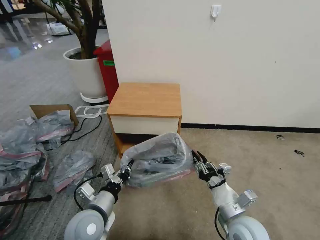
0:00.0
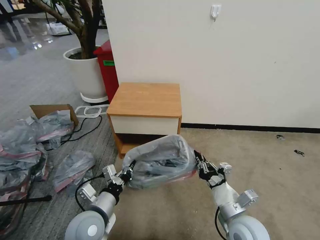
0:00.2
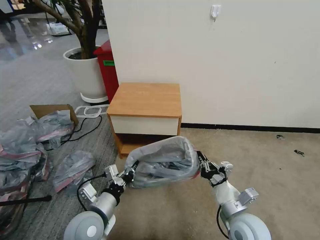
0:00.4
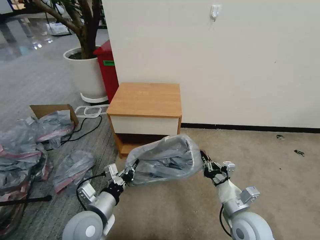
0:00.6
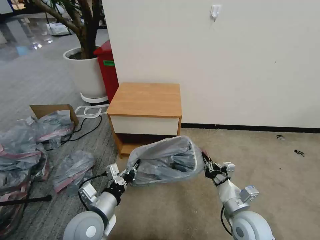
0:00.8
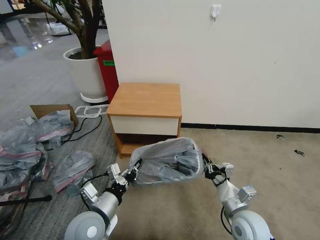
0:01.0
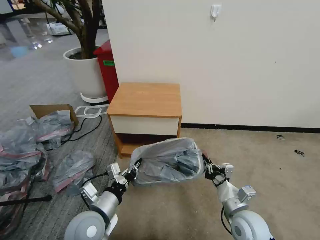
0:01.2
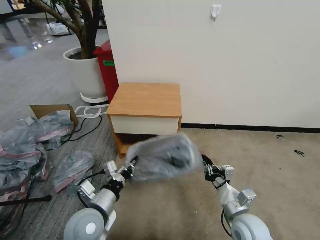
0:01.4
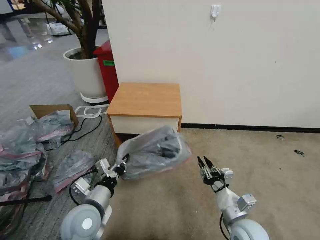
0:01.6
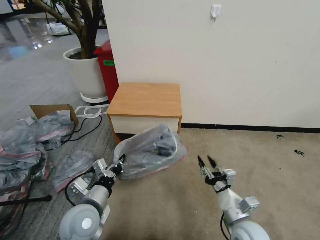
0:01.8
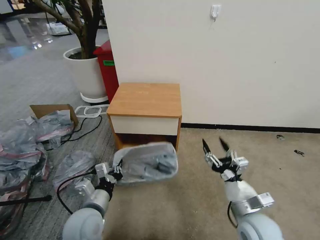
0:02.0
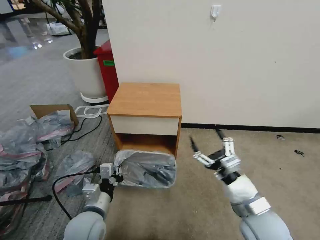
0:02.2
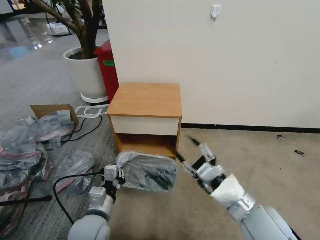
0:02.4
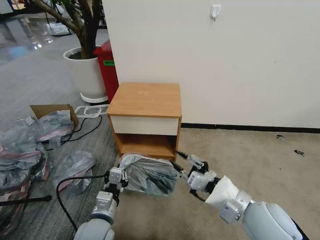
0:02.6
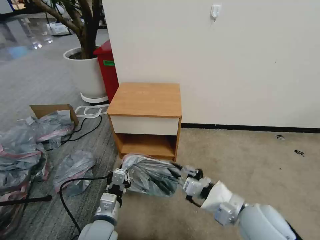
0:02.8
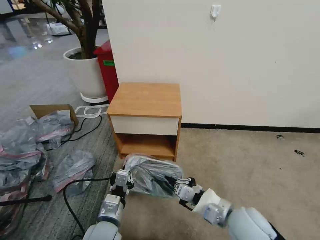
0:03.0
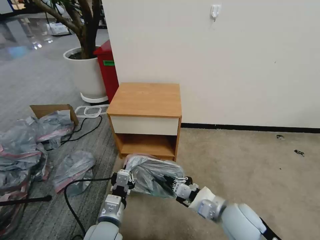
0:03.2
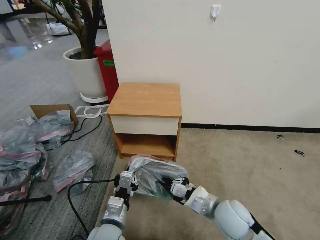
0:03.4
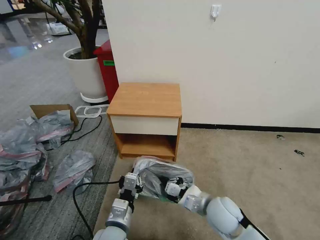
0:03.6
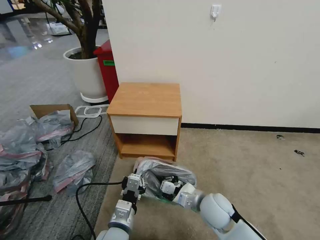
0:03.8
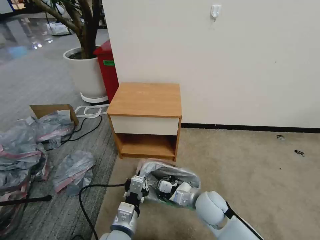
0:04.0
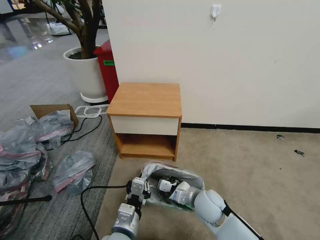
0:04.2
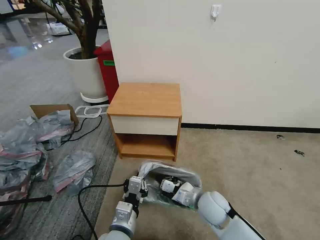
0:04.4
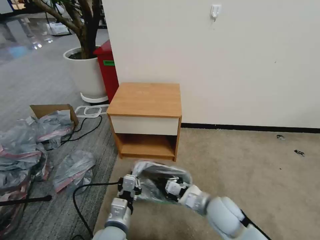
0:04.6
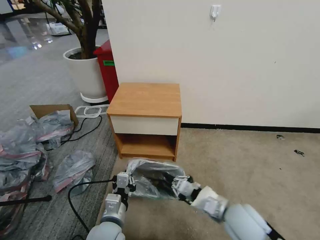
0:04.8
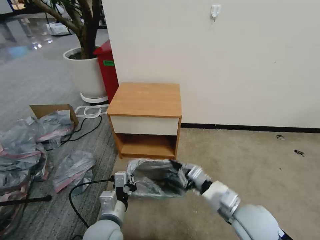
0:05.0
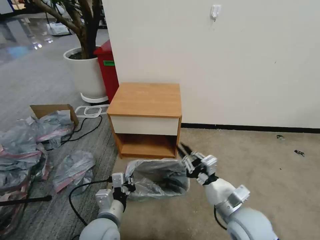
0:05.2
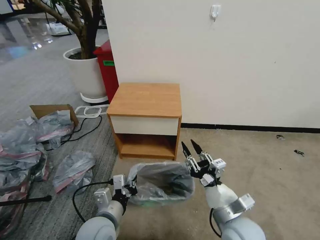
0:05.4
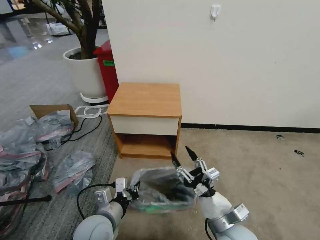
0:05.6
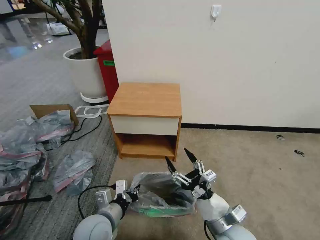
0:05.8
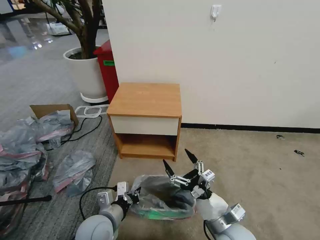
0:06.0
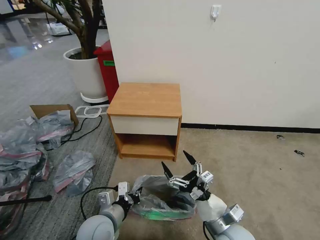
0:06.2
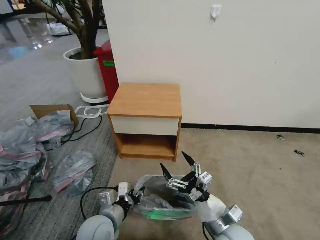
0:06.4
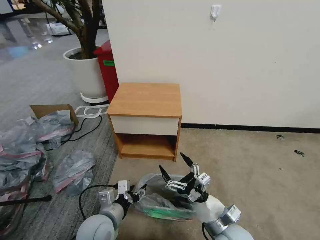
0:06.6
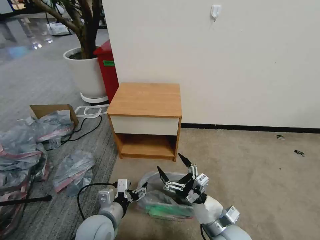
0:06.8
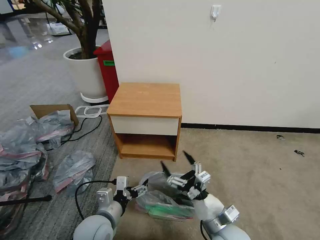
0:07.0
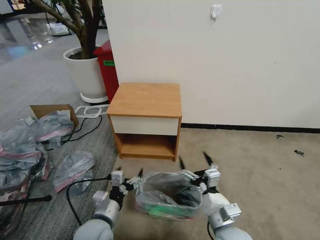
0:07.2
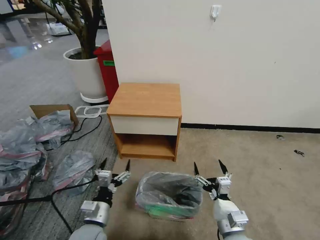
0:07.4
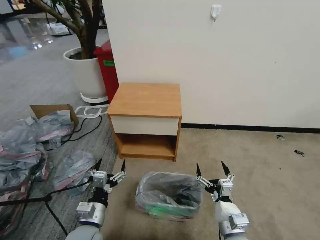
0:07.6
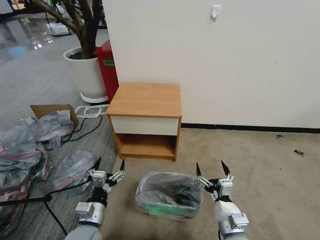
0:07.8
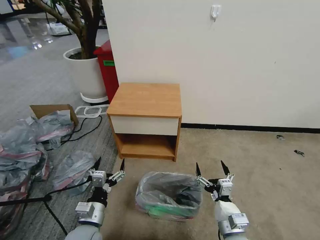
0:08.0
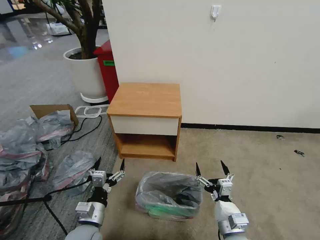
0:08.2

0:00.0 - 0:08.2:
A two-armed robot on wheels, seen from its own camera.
Task of the whole recording: Pick up the garbage bag from the table and place it over the trash can.
0:00.0 - 0:01.6: The grippers make only small movements.
0:01.6 - 0:03.2: The right gripper goes about 5 cm upward, and opens and closes again. The left gripper goes roughly 5 cm to the right.
0:03.2 - 0:05.0: The right gripper reaches about 10 cm downward, then returns.
0:05.0 - 0:06.6: The left gripper opens its fingers. Meanwhile the right gripper is displaced downward by roughly 5 cm, and opens.
0:06.6 - 0:08.2: The left gripper ends up some 5 cm from where it was, and opens up.

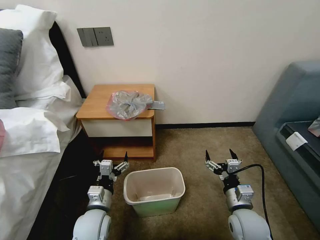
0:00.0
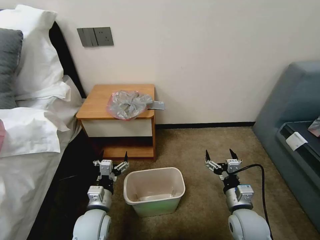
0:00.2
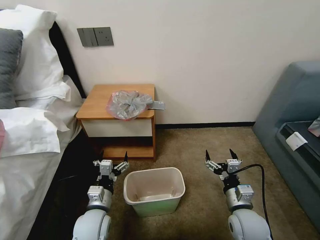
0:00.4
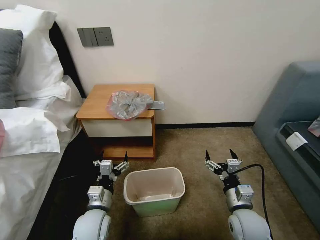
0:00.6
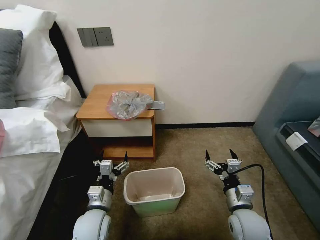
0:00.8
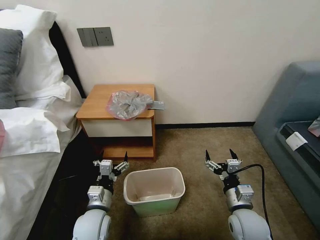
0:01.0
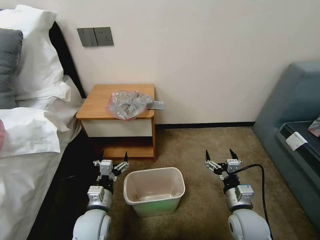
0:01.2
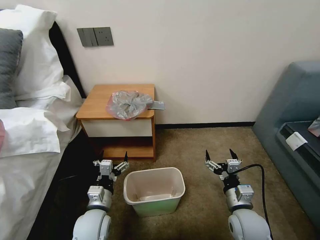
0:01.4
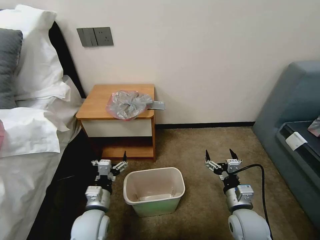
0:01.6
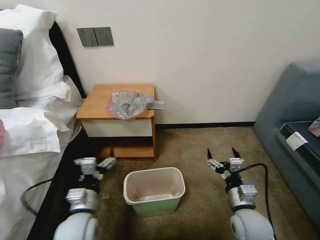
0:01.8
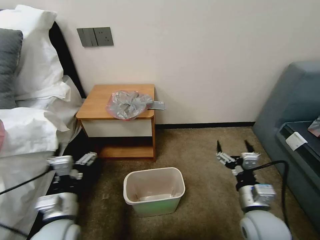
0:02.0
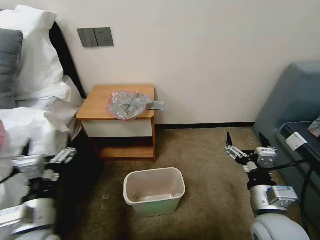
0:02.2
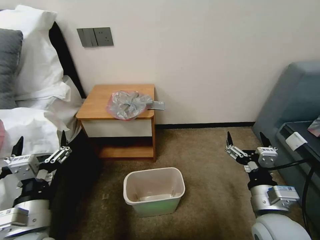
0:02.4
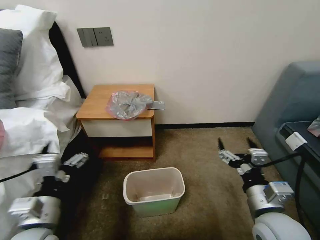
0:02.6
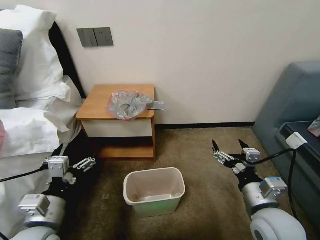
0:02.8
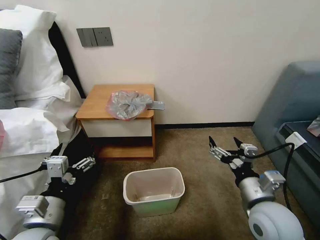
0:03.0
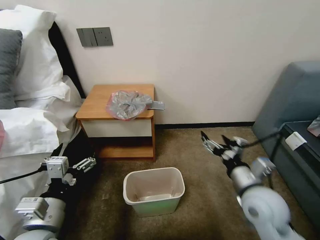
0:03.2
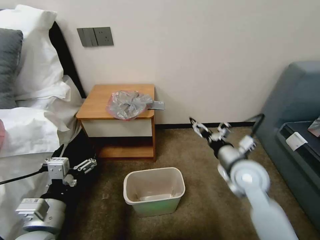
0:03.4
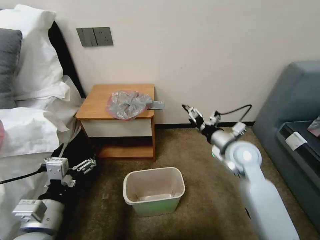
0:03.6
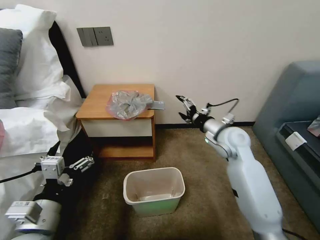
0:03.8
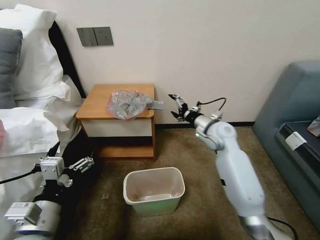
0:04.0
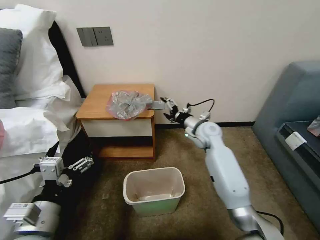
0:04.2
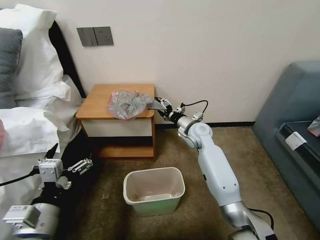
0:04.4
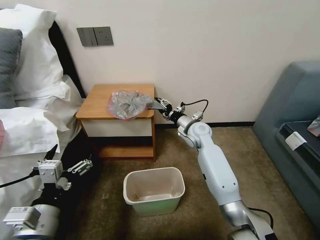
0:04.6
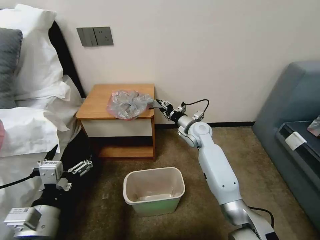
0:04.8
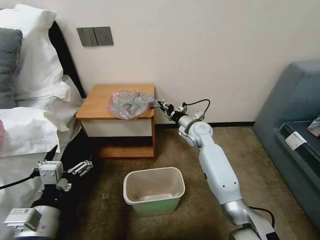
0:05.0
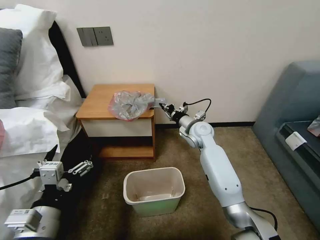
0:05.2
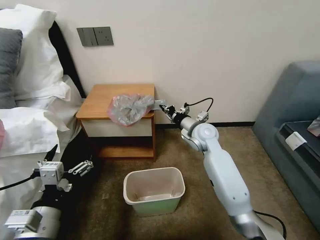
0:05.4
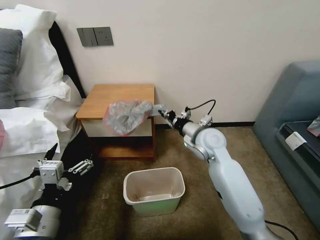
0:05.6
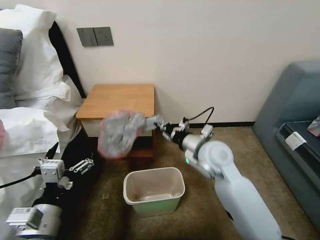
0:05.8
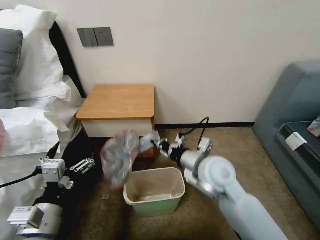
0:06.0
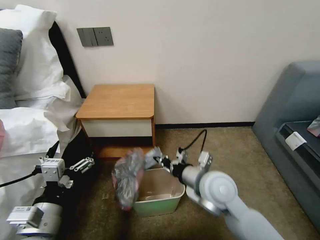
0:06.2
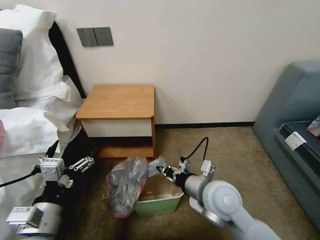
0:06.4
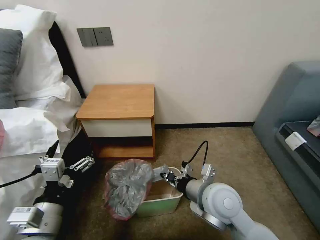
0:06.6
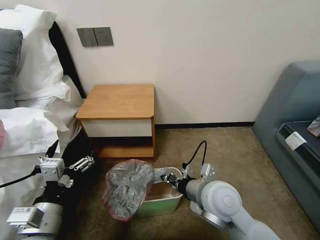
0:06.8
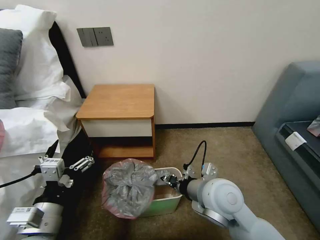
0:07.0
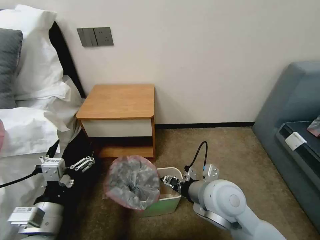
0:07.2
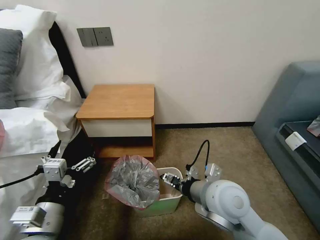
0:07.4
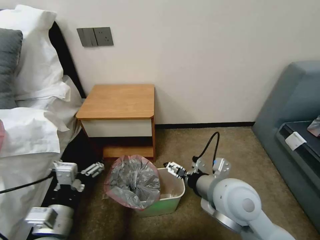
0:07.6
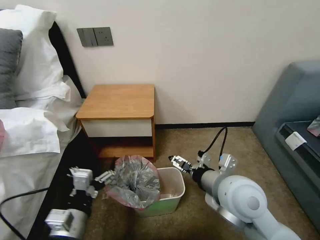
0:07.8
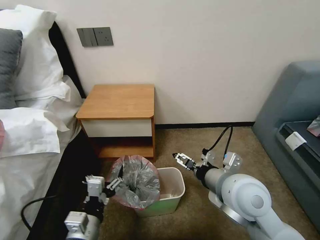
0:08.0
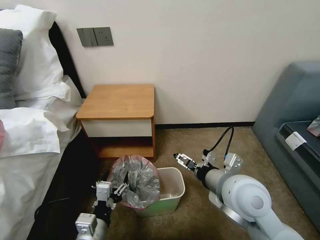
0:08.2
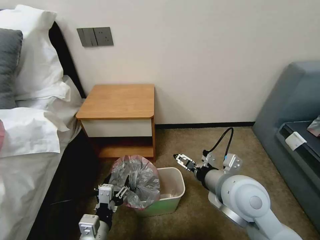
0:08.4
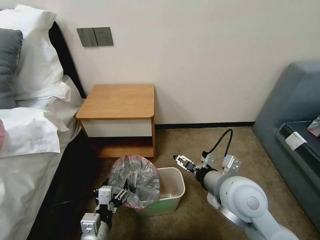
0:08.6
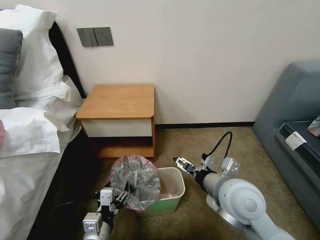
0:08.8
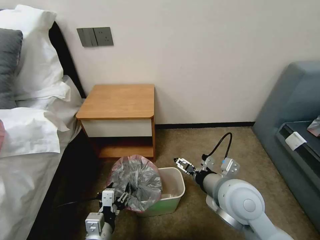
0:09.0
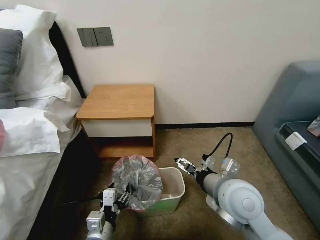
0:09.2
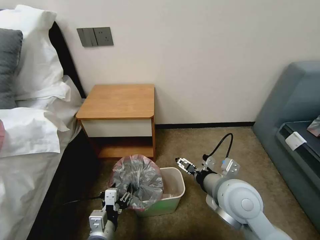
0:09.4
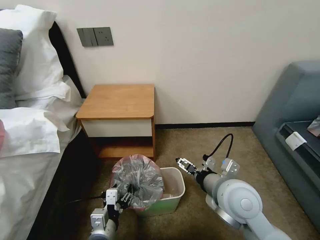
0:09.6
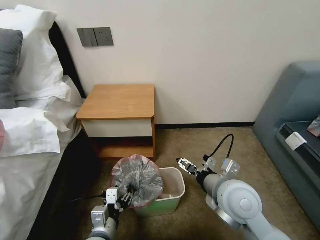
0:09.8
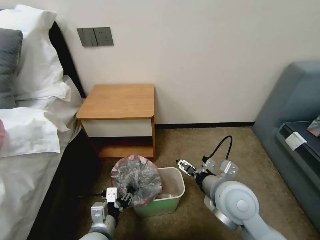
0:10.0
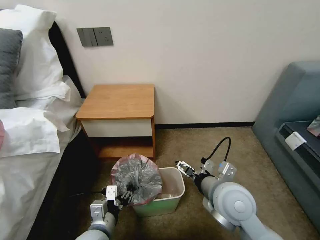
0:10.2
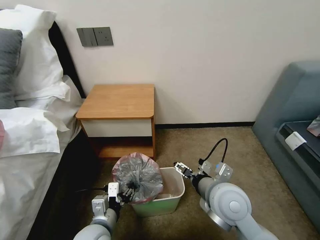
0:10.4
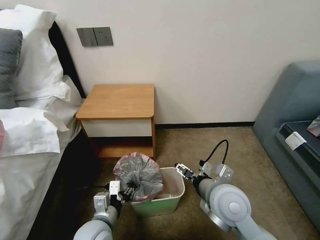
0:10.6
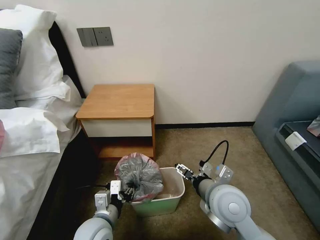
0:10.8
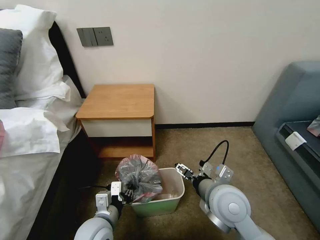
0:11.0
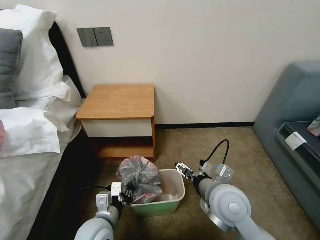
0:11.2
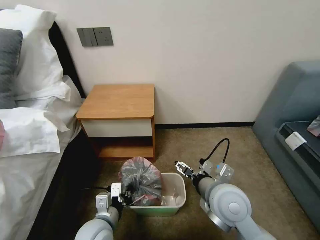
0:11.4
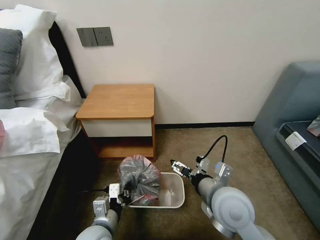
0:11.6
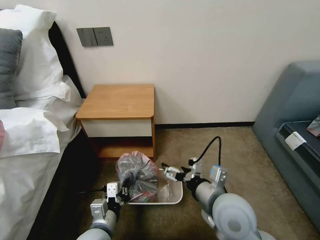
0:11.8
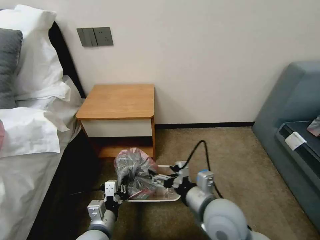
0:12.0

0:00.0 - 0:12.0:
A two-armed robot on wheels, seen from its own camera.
Task of the whole recording: Pick up the garbage bag from the table and place it over the trash can.
0:01.6 - 0:03.0: The right gripper moves upward, about 10 cm, while the left gripper heads upward, backward and to the left, covering approximately 15 cm.
0:03.0 - 0:04.4: The right gripper heads forward, covering approximately 30 cm.
0:04.4 - 0:06.0: The right gripper shifts approximately 20 cm backward, and closes.
0:06.0 - 0:07.6: The right gripper shifts some 5 cm backward, and opens.
0:07.6 - 0:09.0: The left gripper moves downward and to the right, roughly 10 cm.
0:09.0 - 0:10.4: The grippers stay close to where they were, moving slightly.
0:10.4 - 0:12.0: The left gripper closes its fingers.

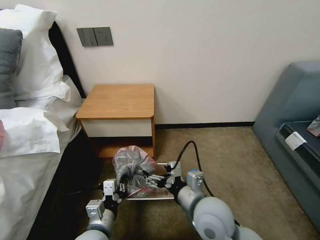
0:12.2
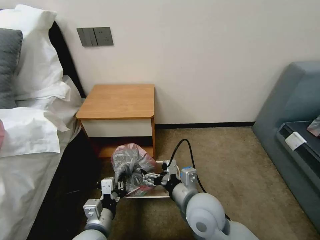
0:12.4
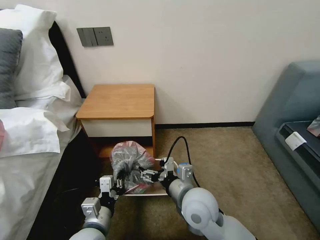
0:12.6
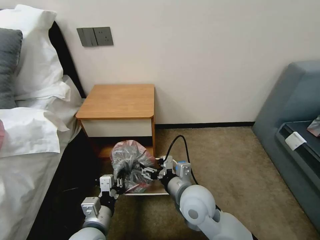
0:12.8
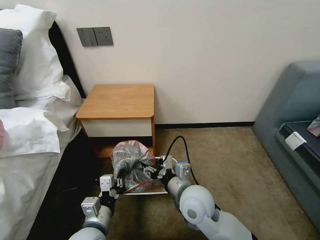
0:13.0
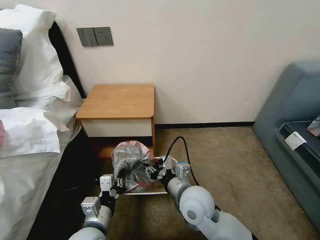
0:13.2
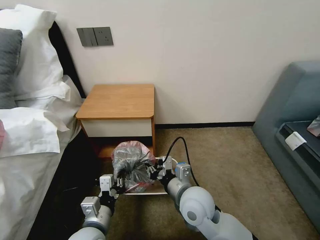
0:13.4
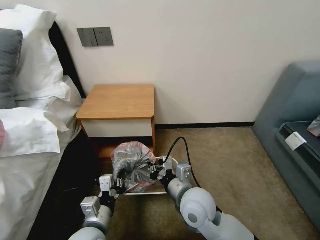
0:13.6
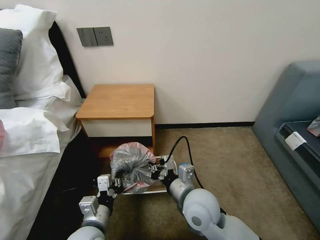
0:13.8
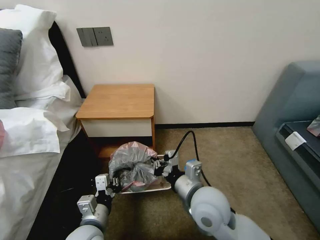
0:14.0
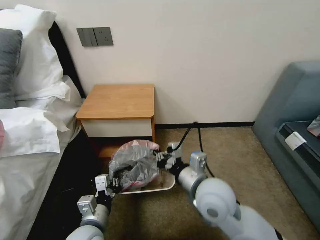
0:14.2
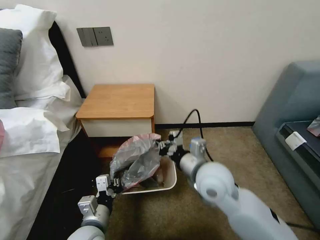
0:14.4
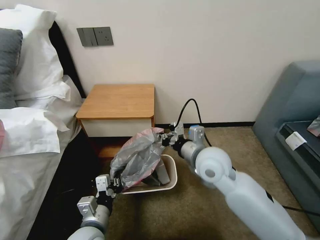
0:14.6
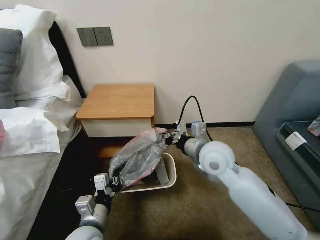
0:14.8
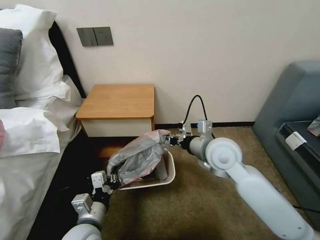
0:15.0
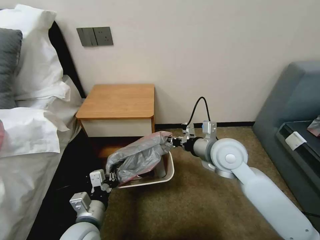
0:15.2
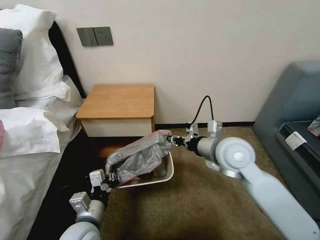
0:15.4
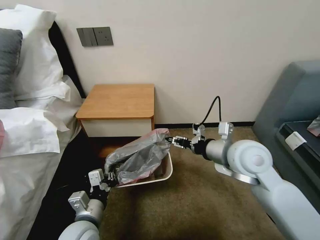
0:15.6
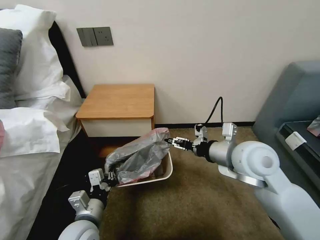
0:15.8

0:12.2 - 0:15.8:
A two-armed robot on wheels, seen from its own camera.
Task of the whole recording: Pick up the garbage bag from the table and place it over the trash can.
0:12.2 - 0:14.0: The right gripper closes up.
0:14.0 - 0:15.8: The right gripper travels to the right, upward and forward by roughly 15 cm, and opens.
